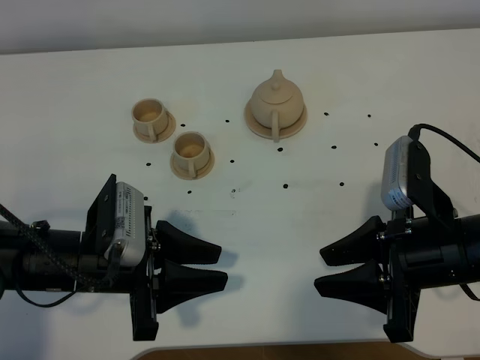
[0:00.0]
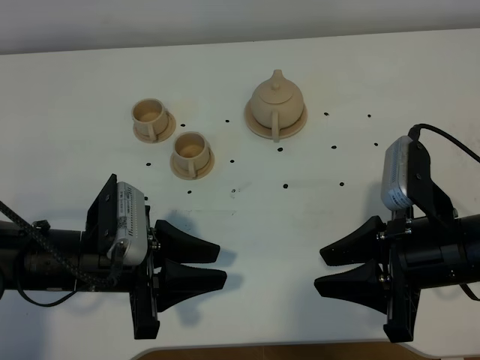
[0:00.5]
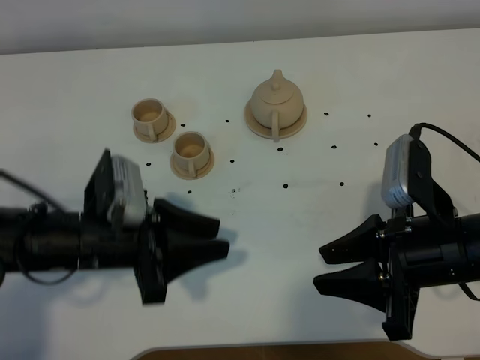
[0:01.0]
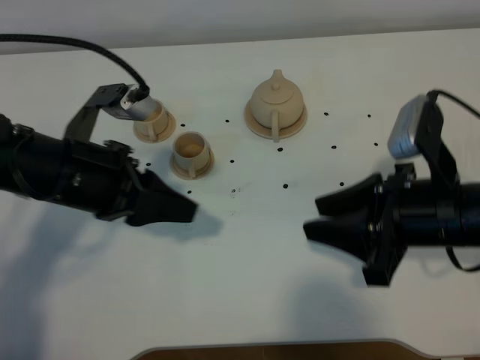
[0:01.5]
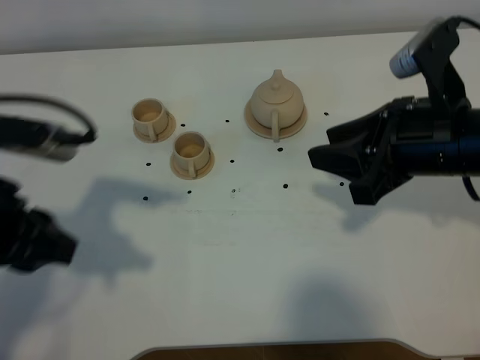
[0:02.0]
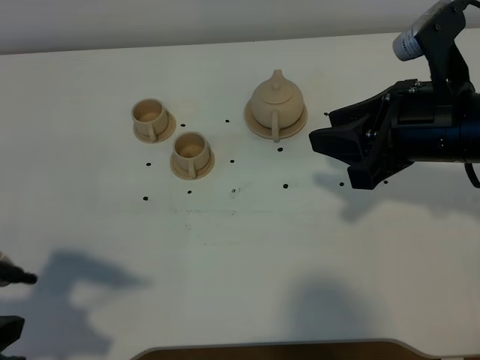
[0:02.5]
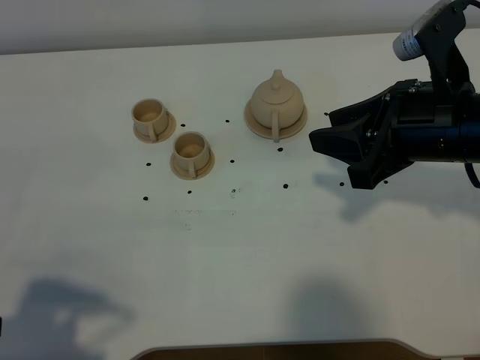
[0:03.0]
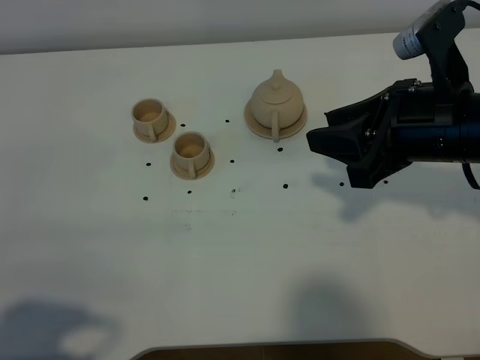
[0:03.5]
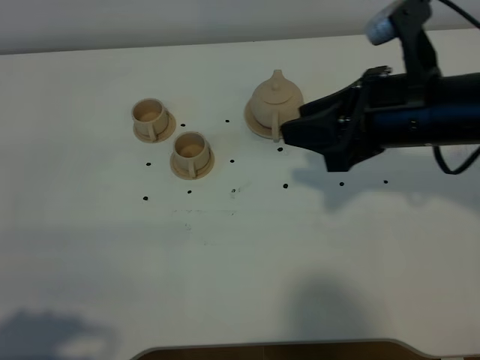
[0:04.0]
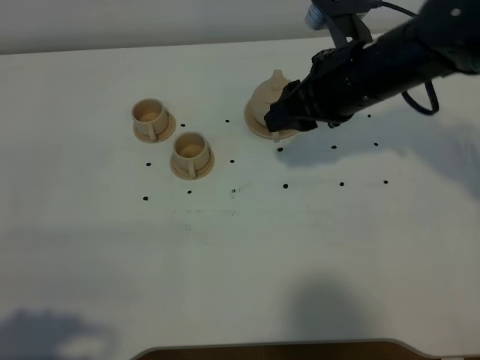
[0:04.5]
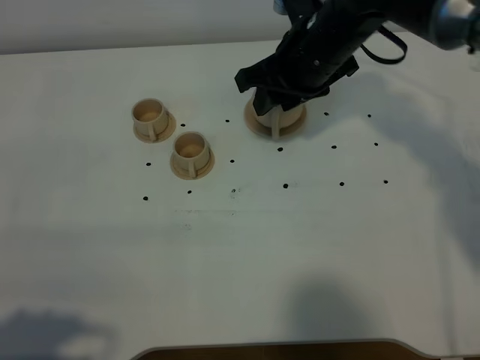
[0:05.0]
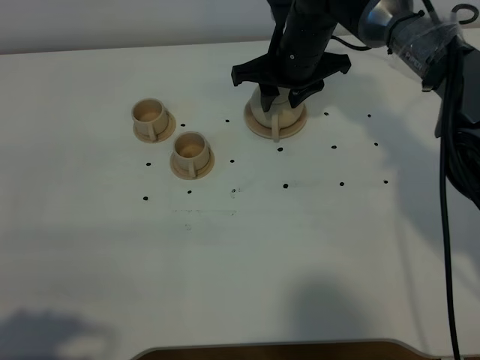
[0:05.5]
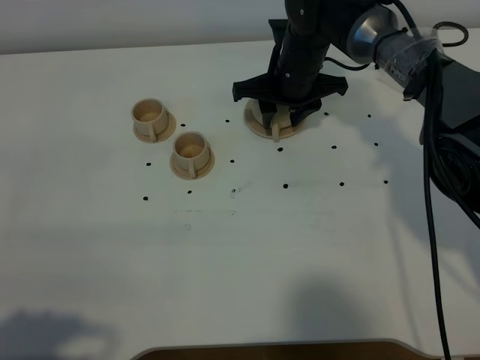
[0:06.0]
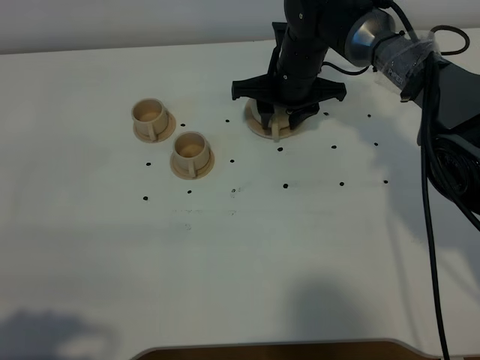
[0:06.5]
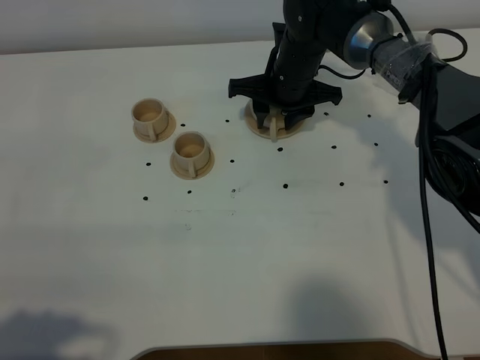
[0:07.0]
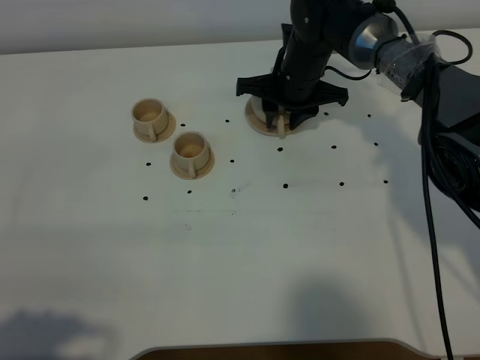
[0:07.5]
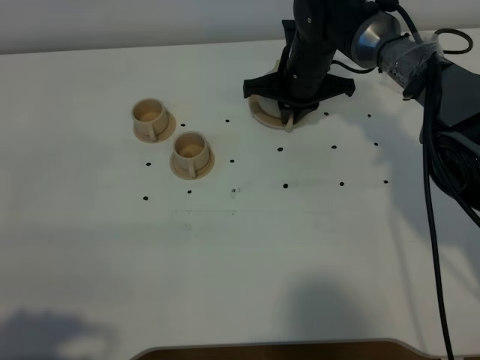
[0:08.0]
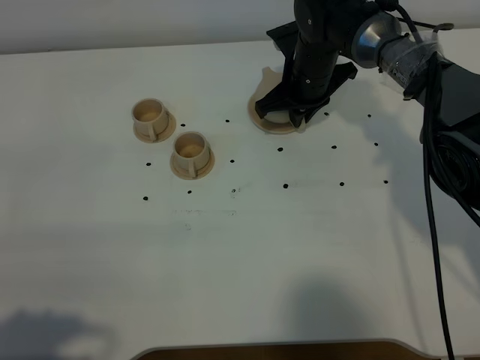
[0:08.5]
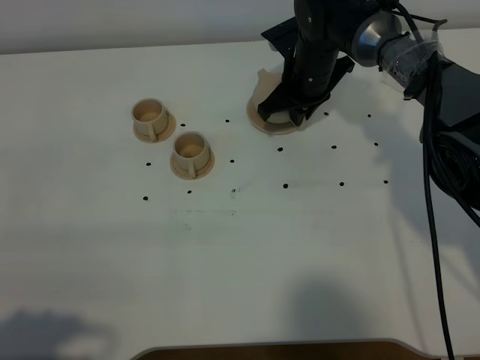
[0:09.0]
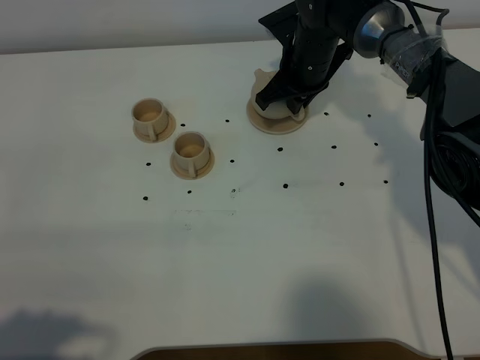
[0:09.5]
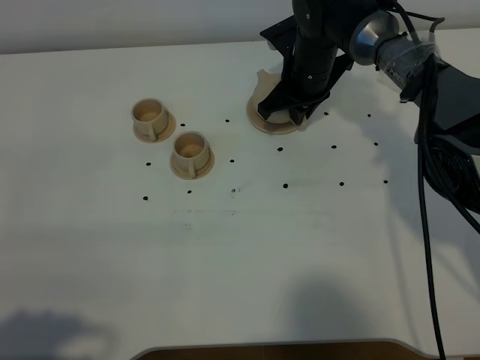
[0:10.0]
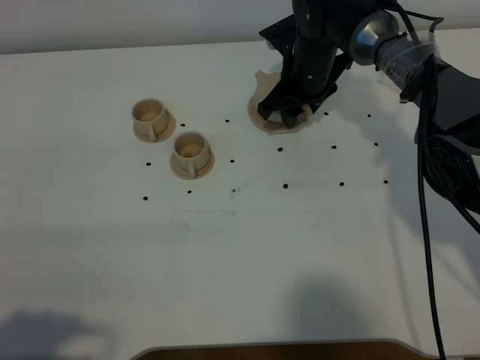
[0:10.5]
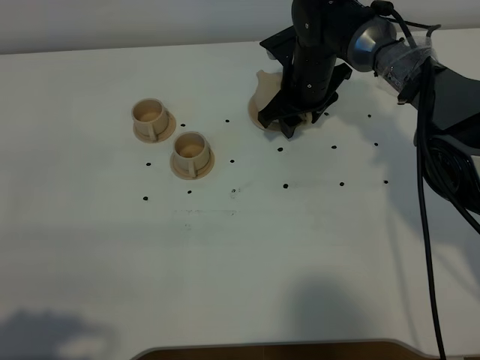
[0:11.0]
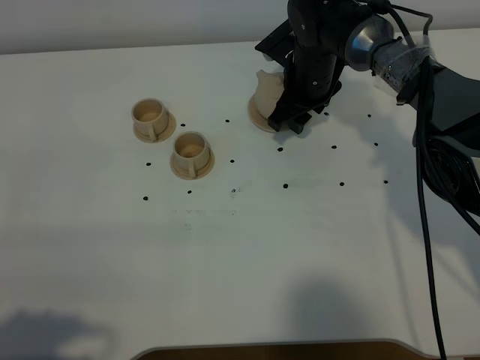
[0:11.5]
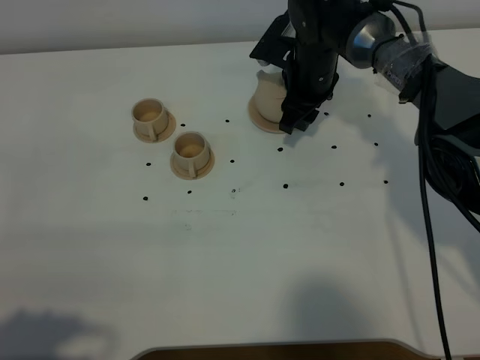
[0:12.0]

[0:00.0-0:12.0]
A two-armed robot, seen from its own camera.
Task of the whole recording: grasp the brown teapot and pour the tea into the two brown teacups one by one, put the brown teapot back in its original place.
0:00.0 to 0:02.0: The right gripper is displaced upward and forward by approximately 10 cm; the left gripper moves upward and to the left, about 15 cm, and closes up.
0:02.0 to 0:04.0: The left gripper moves backward, about 15 cm.
0:04.0 to 0:06.0: The right gripper moves forward, downward and to the left, roughly 25 cm.
0:06.0 to 0:08.0: The right gripper closes its fingers.
0:10.0 to 0:12.0: The right gripper opens.

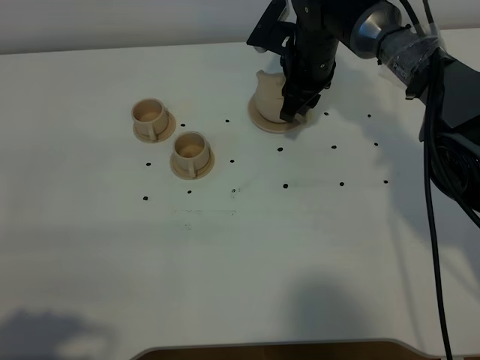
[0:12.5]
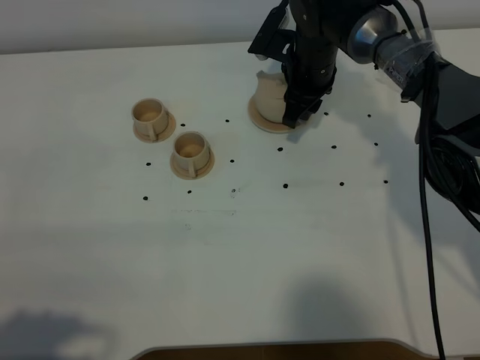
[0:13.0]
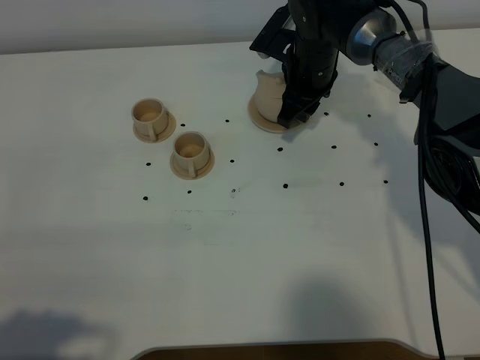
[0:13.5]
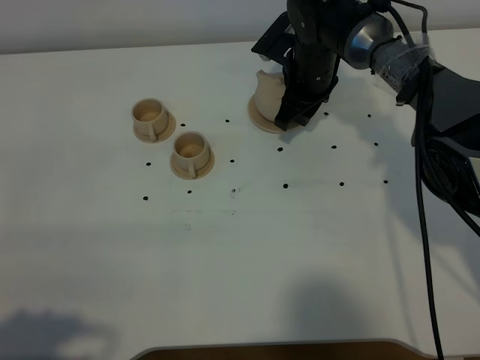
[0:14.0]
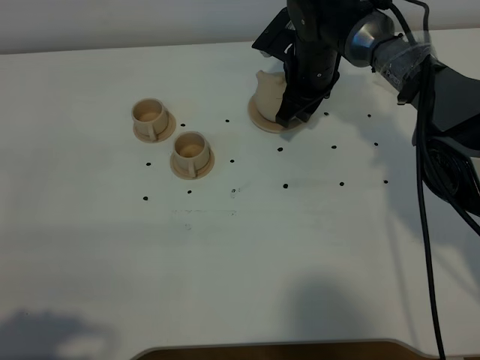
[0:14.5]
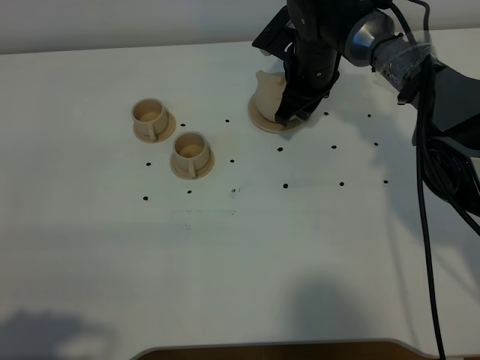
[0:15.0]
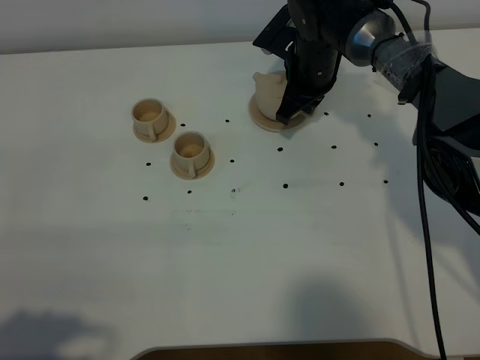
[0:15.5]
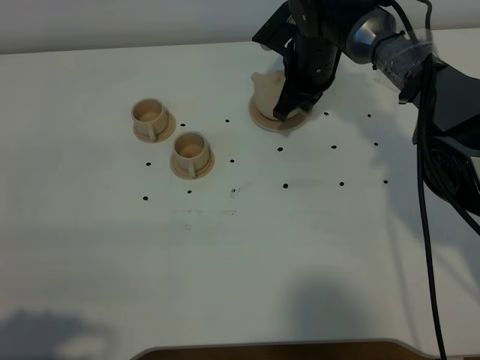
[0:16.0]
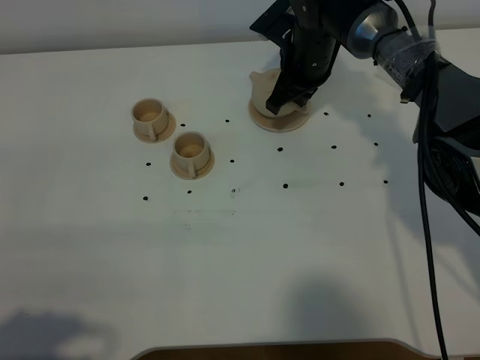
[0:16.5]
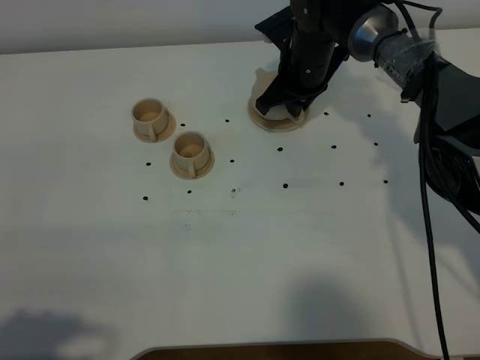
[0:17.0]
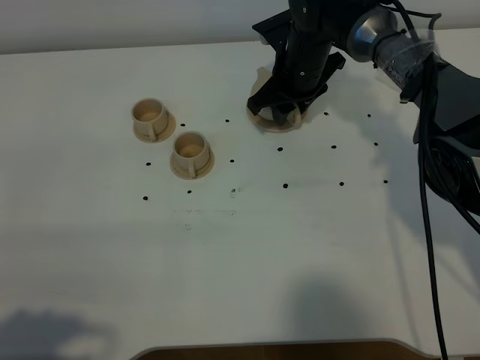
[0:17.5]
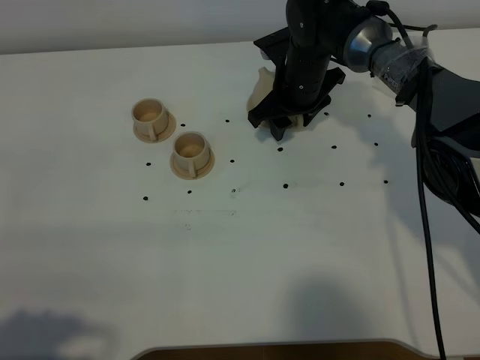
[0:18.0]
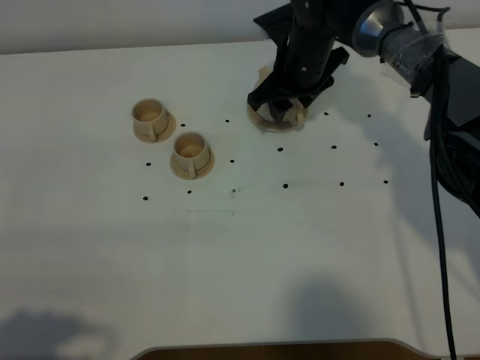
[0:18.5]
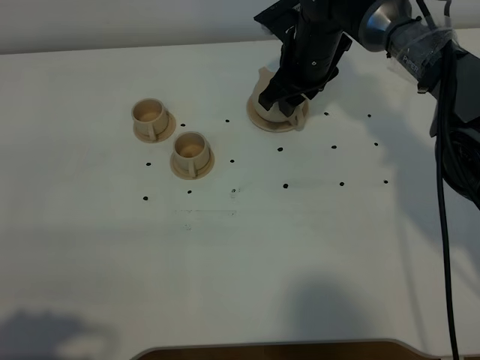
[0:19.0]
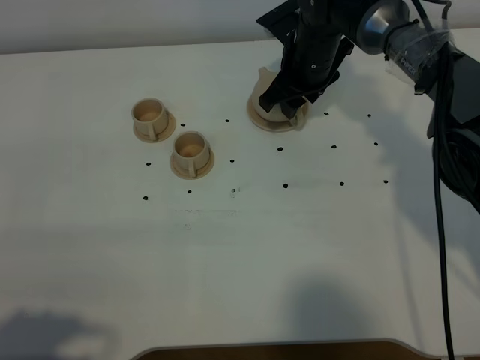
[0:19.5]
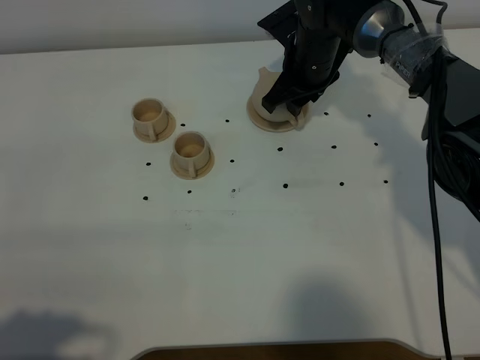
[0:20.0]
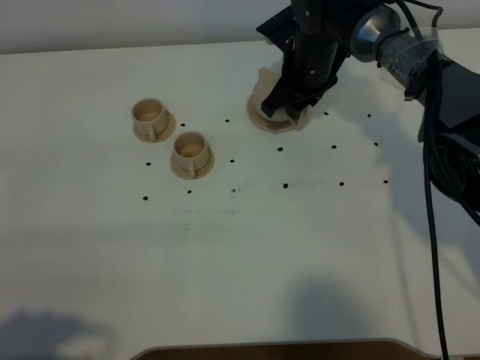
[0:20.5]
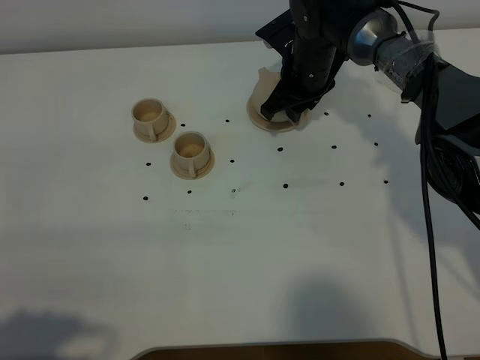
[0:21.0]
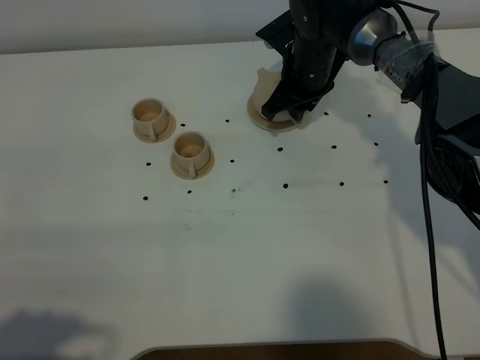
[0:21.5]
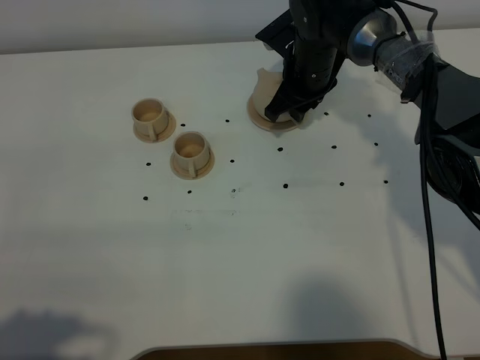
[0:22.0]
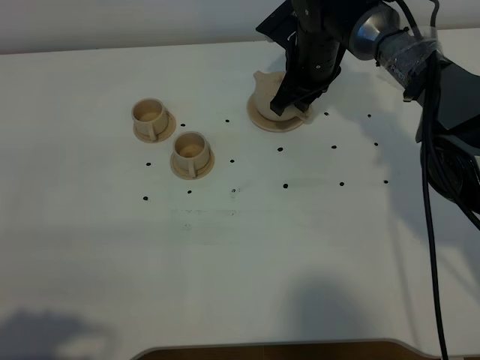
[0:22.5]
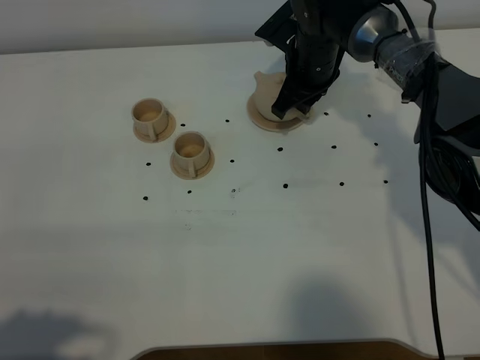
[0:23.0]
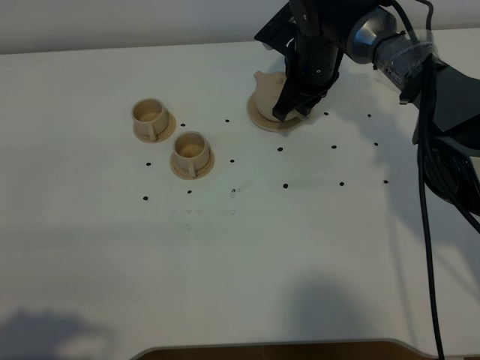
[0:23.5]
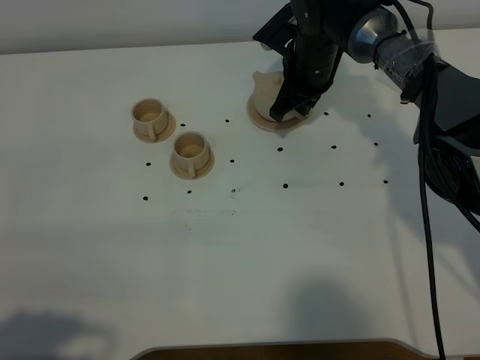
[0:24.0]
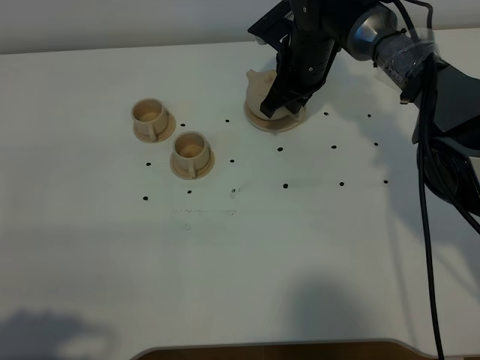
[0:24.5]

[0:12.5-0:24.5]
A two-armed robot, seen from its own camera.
Task of the whole recording: grasp the brown teapot and pour the tea into the two brown teacups one by one, put the brown teapot back in its original place.
0:12.5 to 0:14.5: The grippers make only small movements.
0:14.5 to 0:16.5: The right gripper closes up.
0:16.5 to 0:18.5: The right gripper opens its fingers.
0:18.5 to 0:22.5: The grippers make only small movements.
0:22.5 to 0:24.5: The right gripper closes up.

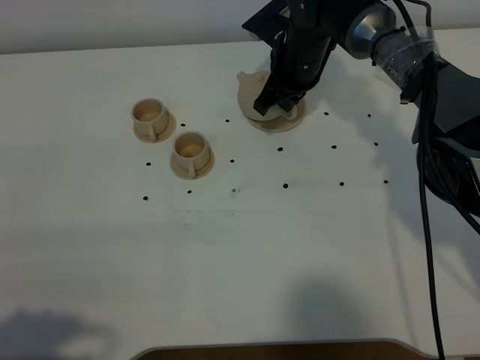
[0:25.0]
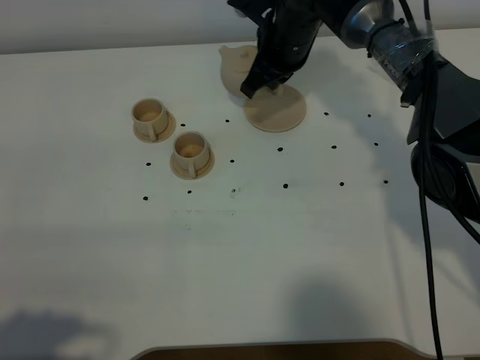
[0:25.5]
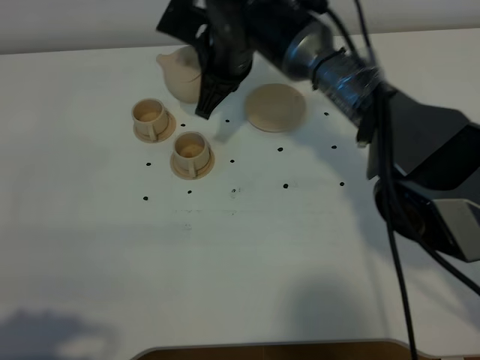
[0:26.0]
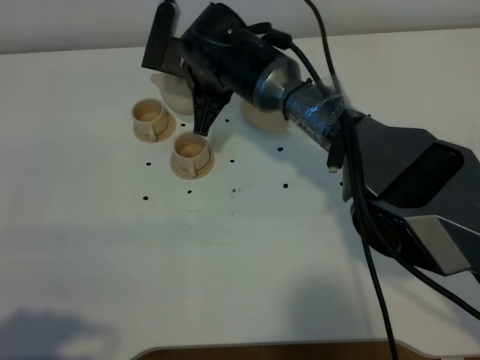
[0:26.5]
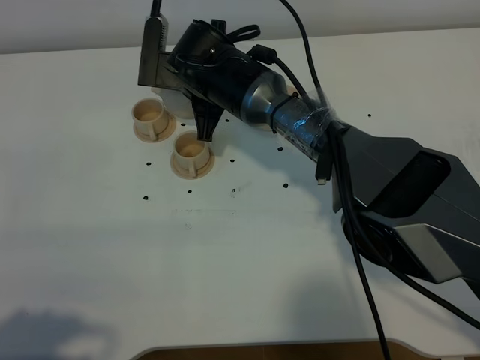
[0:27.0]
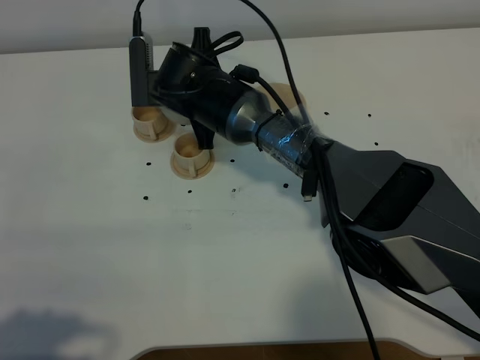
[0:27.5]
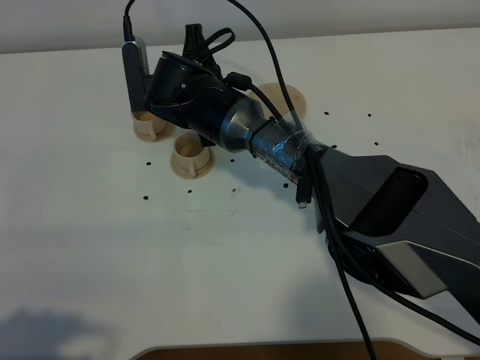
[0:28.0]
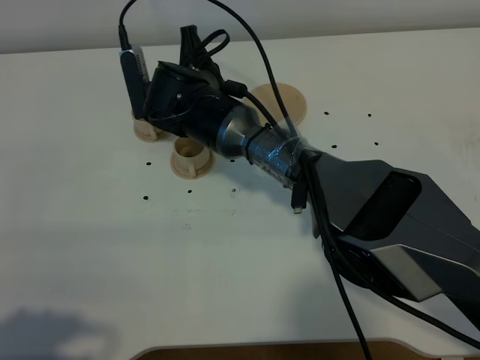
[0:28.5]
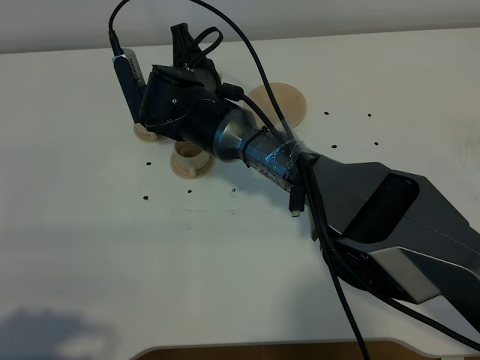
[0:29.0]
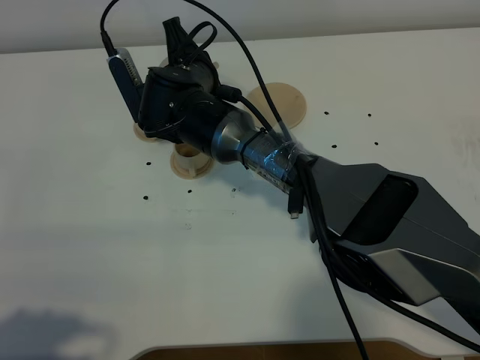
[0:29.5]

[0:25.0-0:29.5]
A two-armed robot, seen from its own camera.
Task of the whole recording: grasp the brown teapot and pour the tea into the two brown teacups one by one, put the brown teapot back in its original place.
0:25.0 to 0:27.0: The right gripper goes about 15 cm to the left and backward.
